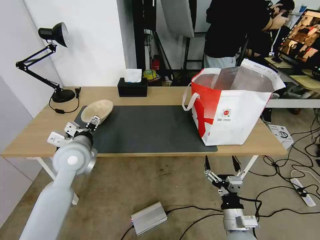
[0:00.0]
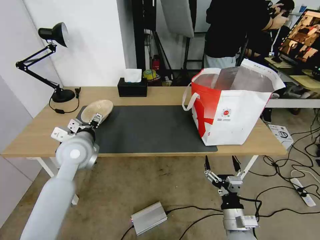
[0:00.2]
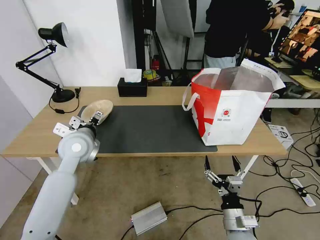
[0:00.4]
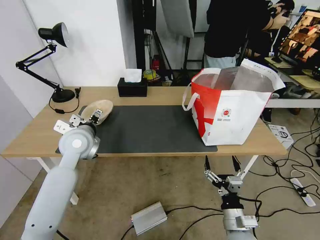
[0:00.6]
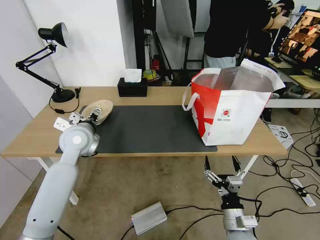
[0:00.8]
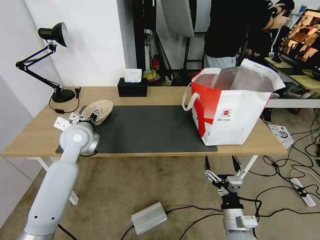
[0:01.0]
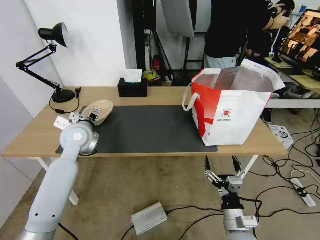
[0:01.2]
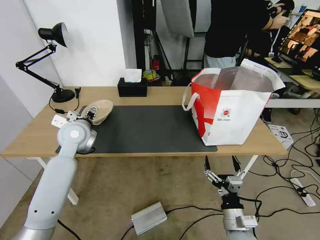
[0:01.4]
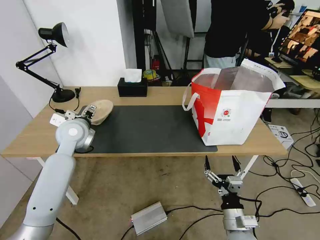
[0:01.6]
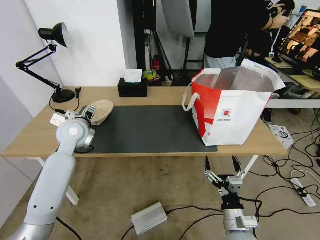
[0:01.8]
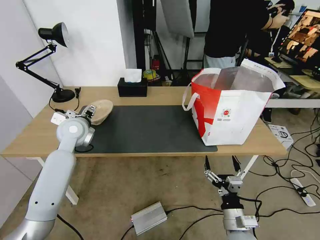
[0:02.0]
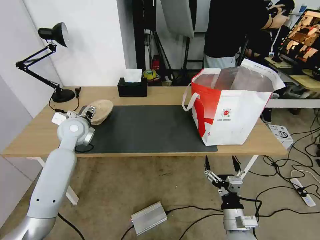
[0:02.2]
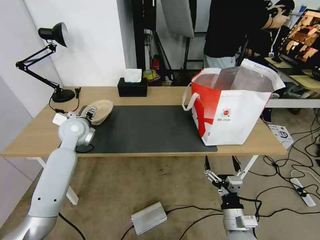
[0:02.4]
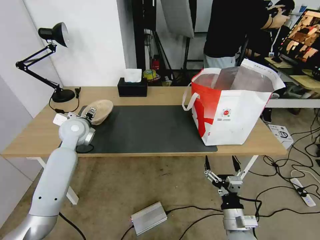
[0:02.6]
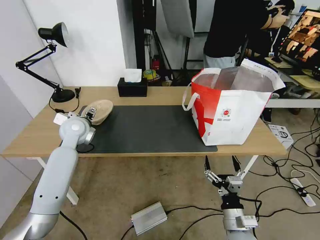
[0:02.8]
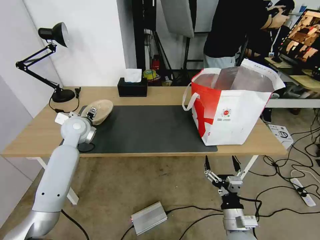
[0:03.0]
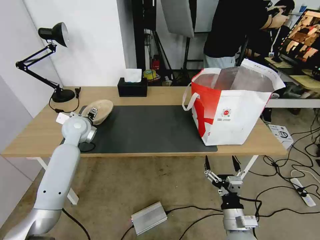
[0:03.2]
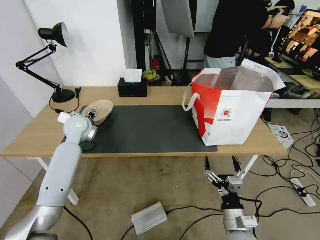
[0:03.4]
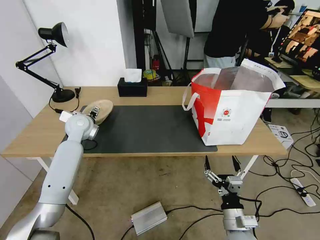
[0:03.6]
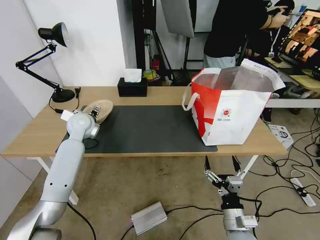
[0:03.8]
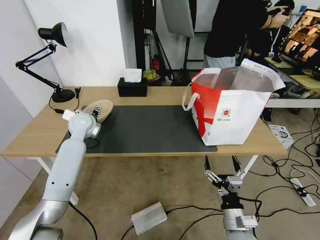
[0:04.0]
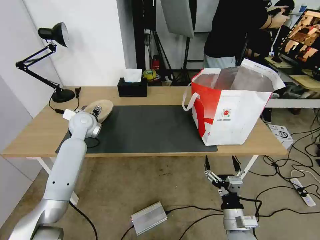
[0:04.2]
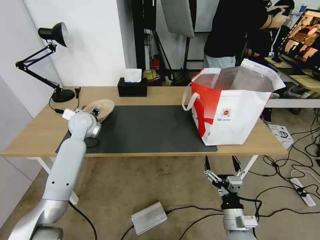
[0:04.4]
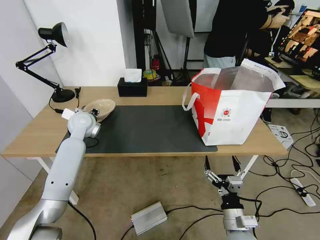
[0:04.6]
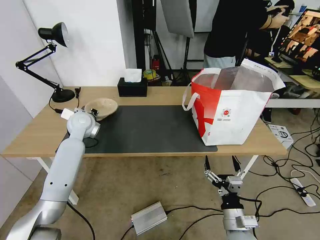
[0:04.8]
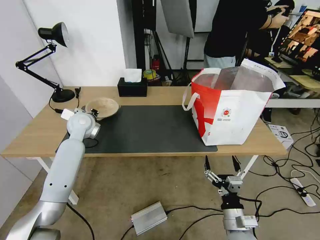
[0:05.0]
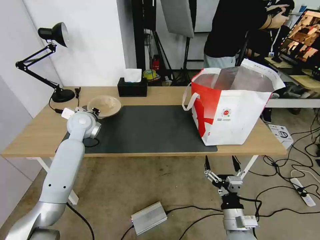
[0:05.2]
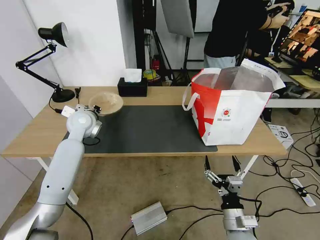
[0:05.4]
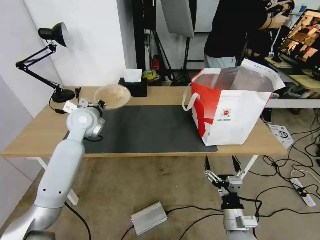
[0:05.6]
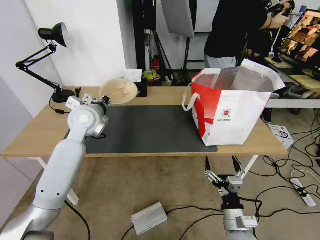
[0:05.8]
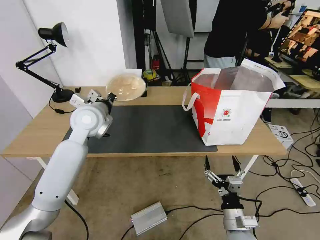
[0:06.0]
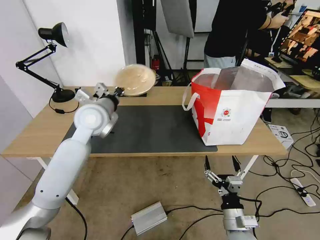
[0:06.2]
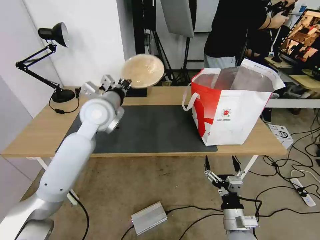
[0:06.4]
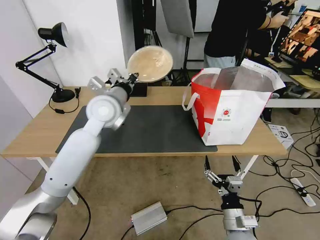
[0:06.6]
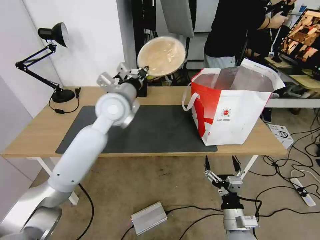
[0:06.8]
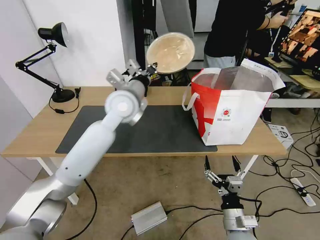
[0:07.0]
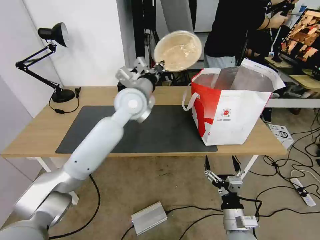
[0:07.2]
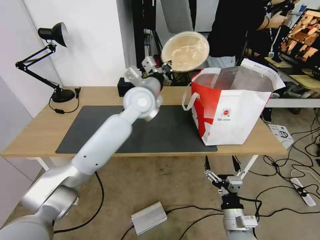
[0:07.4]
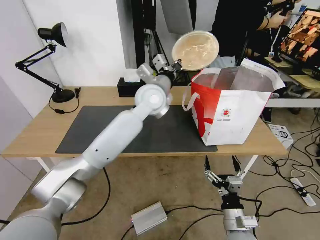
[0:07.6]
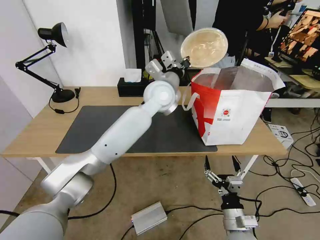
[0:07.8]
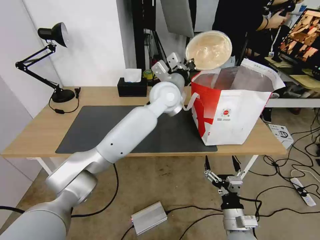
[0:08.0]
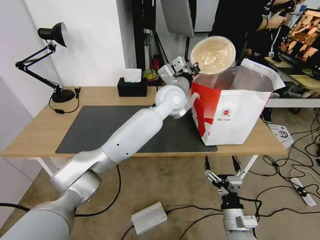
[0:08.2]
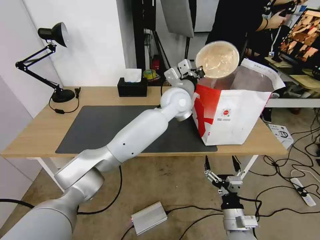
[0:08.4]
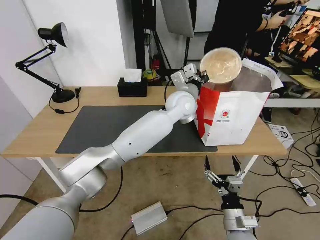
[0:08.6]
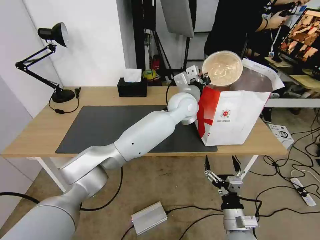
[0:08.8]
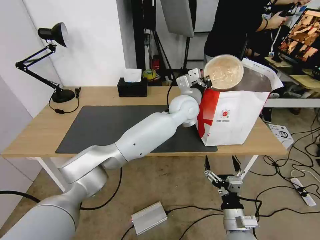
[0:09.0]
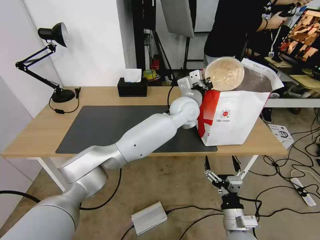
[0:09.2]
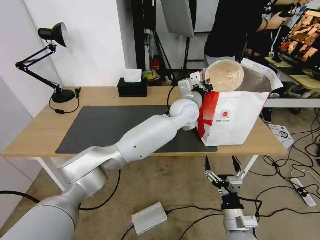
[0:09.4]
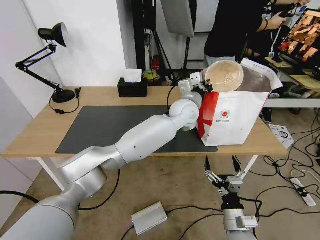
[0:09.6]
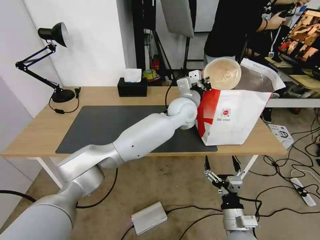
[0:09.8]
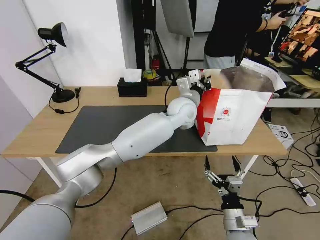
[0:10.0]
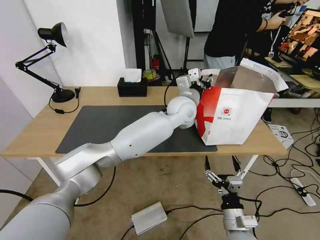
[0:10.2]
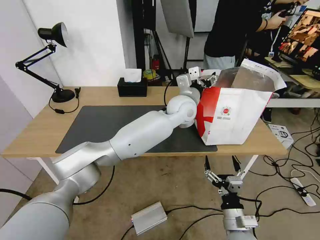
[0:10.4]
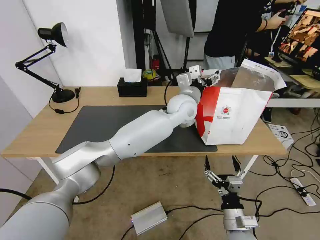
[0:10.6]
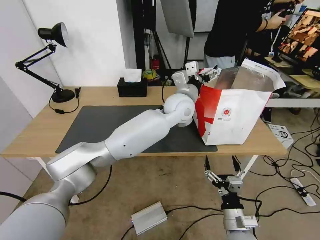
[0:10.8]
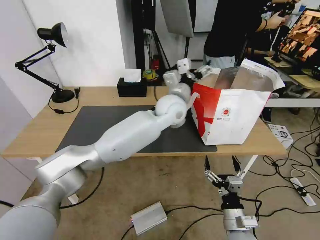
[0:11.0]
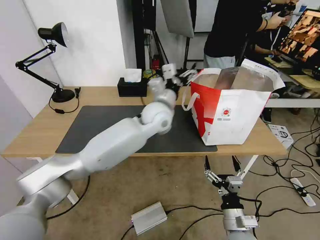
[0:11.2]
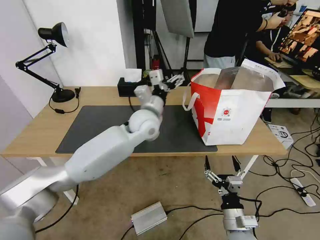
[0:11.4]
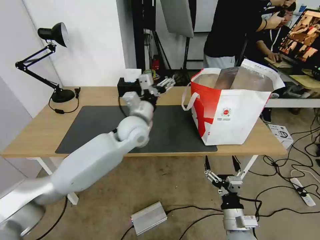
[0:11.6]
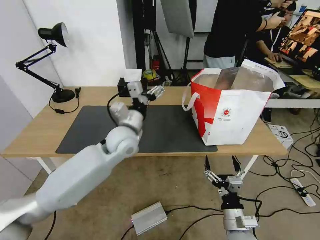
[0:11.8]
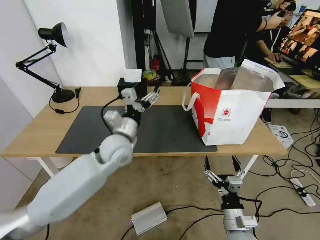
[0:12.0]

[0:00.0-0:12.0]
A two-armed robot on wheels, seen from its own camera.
Task of the whole recording: Pick up the trash from the table and place it into the takeout bag.
0:00.0 to 0:01.6: The left gripper moves forward, approximately 10 cm.
0:01.6 to 0:03.0: There are only small adjustments of the grippers.
0:03.0 to 0:04.4: The left gripper closes up.
0:04.4 to 0:06.0: The left gripper is displaced upward, to the right and backward by approximately 10 cm, and closes.
0:06.0 to 0:07.6: The left gripper travels to the right by approximately 20 cm.
0:07.6 to 0:09.0: The left gripper moves to the right and downward, about 10 cm.
0:09.0 to 0:10.4: The left gripper opens.
0:10.4 to 0:12.0: The left gripper moves to the left and backward, about 25 cm.

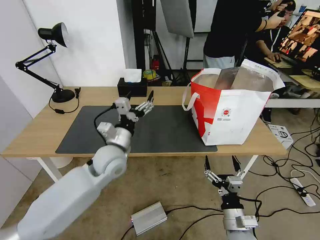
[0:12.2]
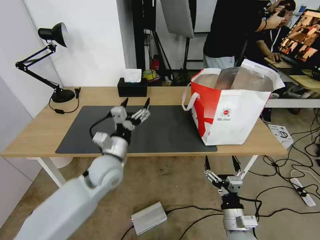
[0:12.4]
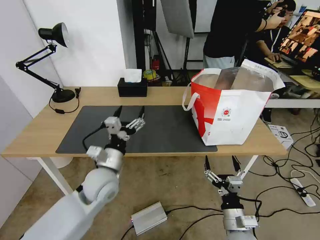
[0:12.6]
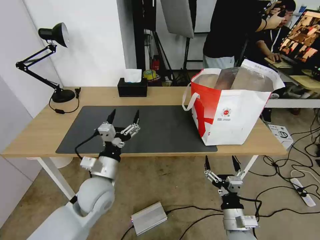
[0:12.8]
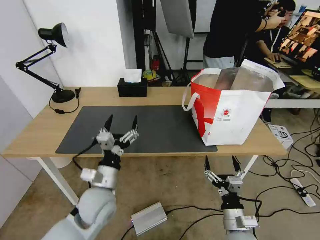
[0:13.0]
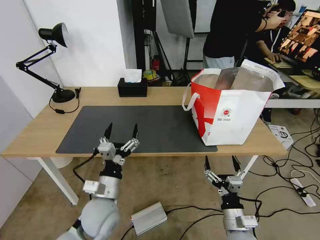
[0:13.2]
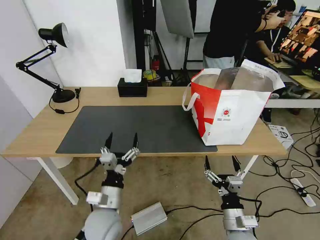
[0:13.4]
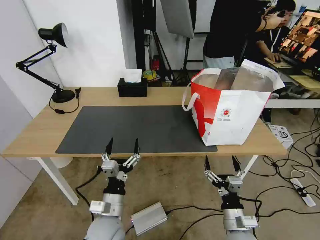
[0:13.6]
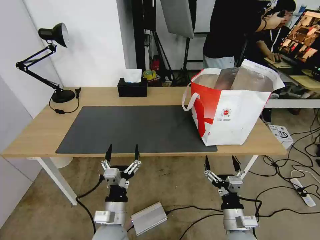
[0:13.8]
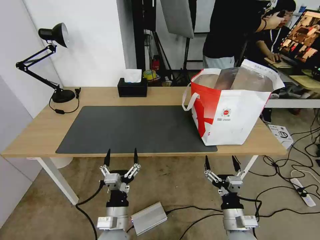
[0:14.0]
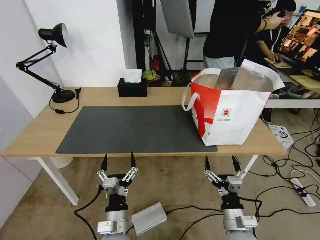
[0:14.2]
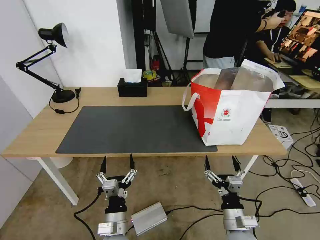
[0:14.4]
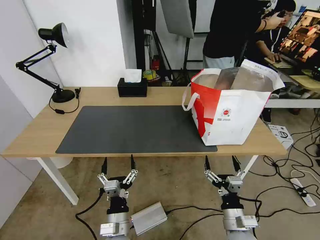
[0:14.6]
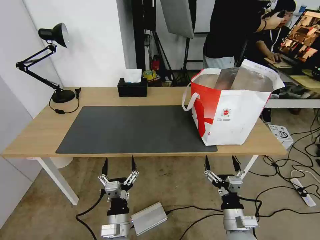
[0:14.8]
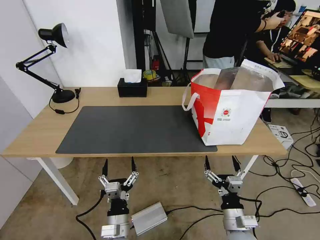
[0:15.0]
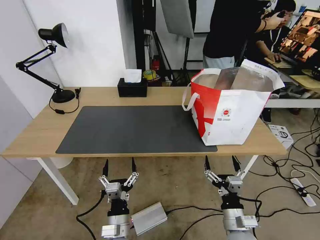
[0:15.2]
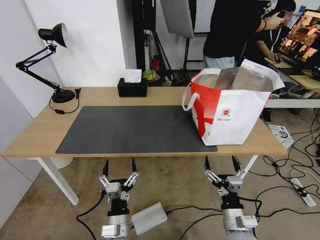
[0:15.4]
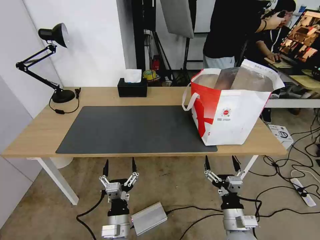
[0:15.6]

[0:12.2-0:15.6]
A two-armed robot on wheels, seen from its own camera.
Task of the whole recording: Pick up the trash from the table and place it into the takeout bag.
0:12.2 to 0:13.8: The left gripper goes roughly 25 cm backward and downward.
0:13.8 to 0:15.6: The left gripper ends up some 5 cm from where it was.

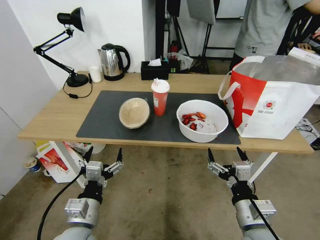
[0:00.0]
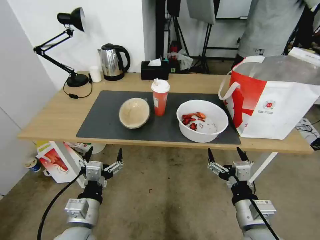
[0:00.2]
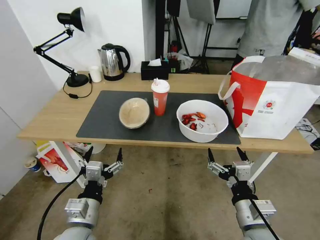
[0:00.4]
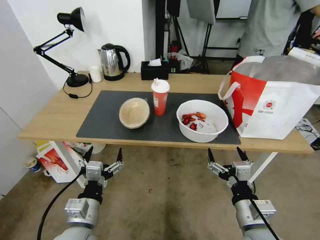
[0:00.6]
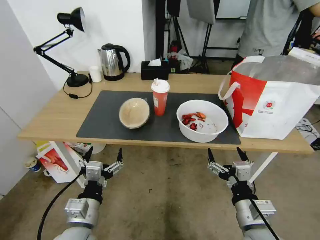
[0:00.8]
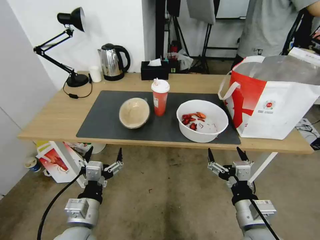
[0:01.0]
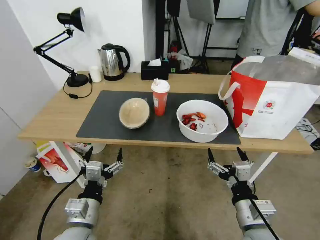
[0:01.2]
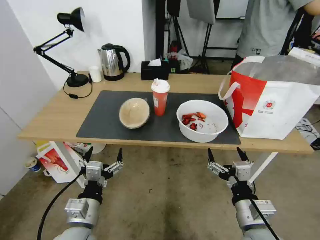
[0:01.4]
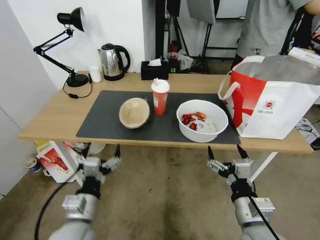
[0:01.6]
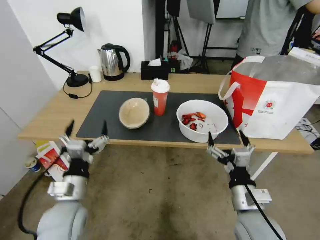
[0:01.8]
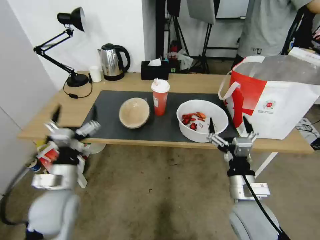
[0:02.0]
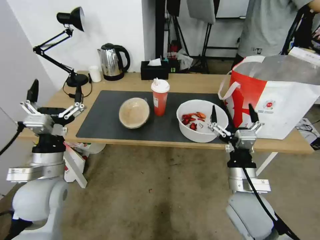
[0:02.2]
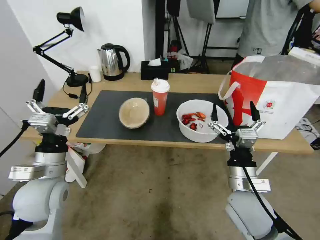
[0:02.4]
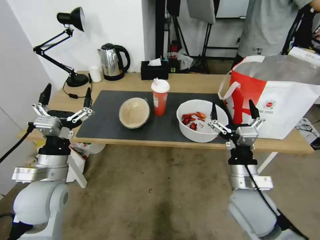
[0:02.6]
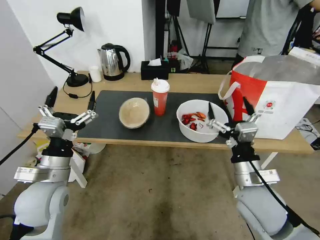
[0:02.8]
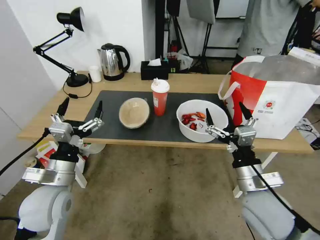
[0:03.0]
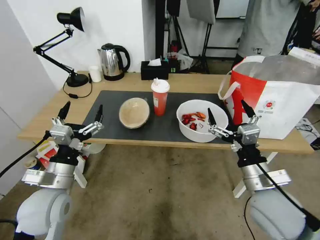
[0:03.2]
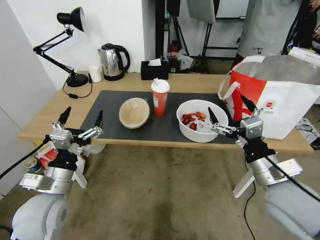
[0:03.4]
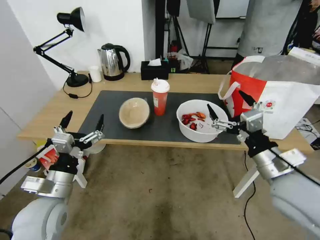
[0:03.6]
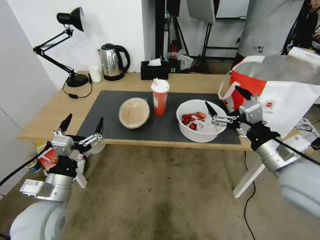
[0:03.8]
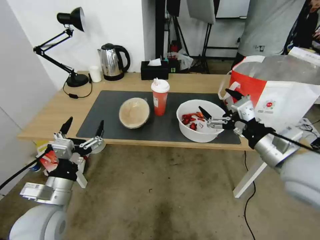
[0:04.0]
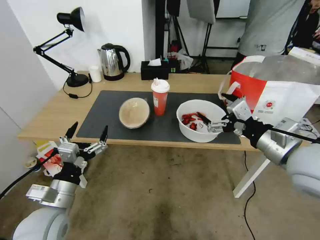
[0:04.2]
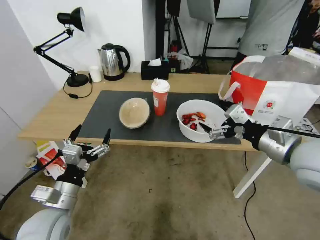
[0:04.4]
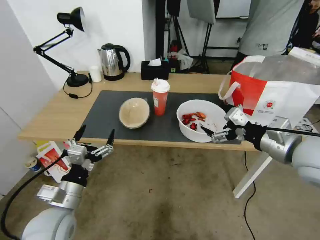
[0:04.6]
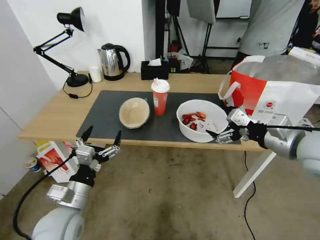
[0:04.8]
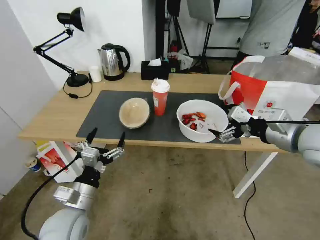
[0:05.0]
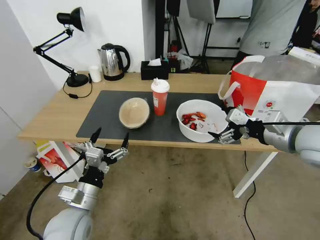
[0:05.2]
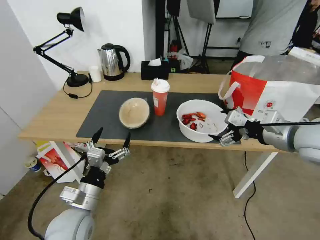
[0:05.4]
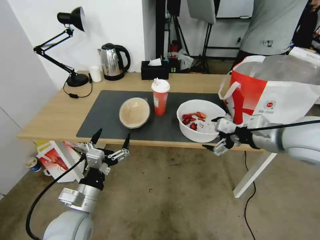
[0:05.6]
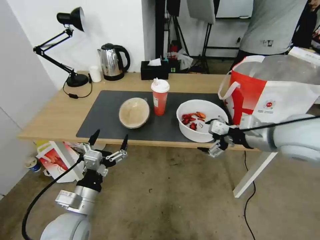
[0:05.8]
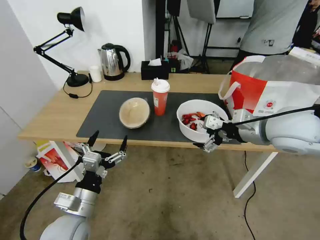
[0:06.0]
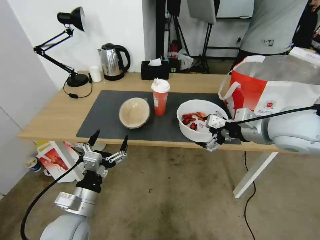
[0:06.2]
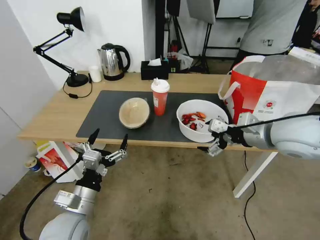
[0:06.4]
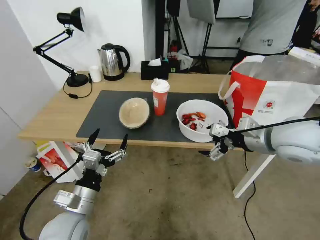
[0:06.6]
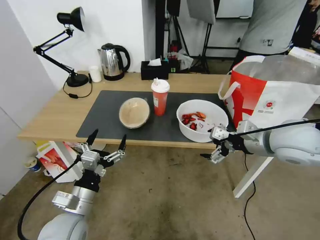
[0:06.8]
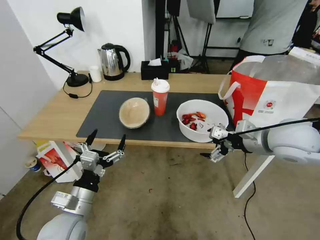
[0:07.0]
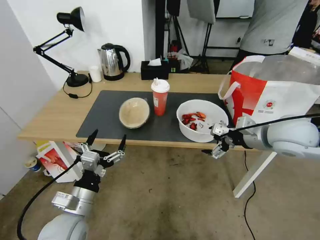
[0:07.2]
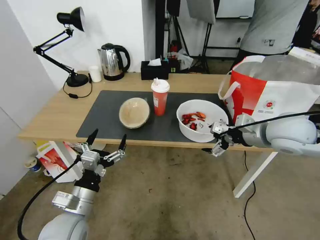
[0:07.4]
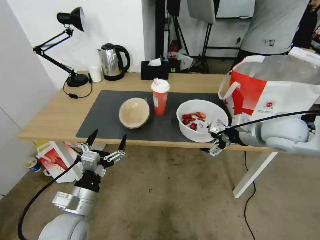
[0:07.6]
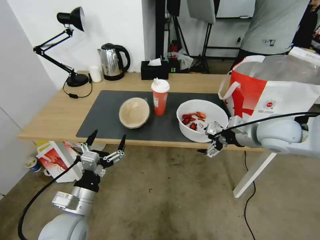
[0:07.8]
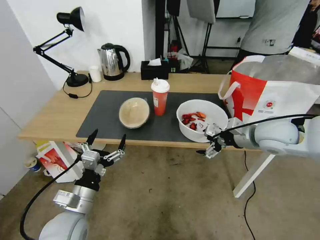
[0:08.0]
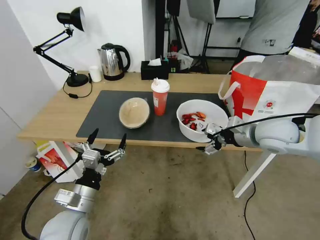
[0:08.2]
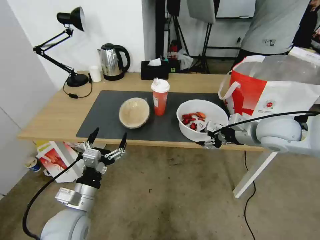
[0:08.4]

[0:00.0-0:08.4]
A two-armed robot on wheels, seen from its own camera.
Task of the whole recording: Pick up the trash from the table and place it into the takeout bag.
0:01.4 to 0:02.8: The left gripper travels forward, upward and to the left by approximately 15 cm. The right gripper is displaced forward and upward by roughly 10 cm.
0:02.8 to 0:04.2: The right gripper heads upward and to the right, covering about 15 cm, while the left gripper shifts by roughly 5 cm.
0:04.2 to 0:05.6: The left gripper heads to the right, covering some 5 cm. Meanwhile the right gripper is displaced forward by approximately 5 cm.
0:05.6 to 0:07.0: The grippers move only a little.
0:07.0 to 0:08.4: The right gripper closes.
